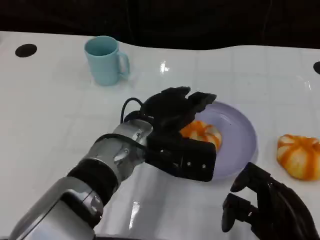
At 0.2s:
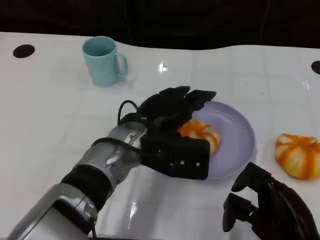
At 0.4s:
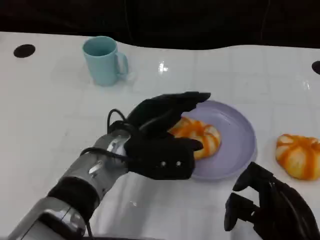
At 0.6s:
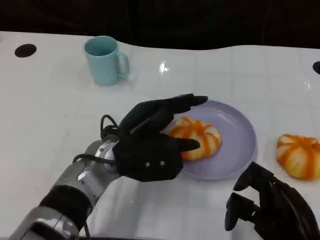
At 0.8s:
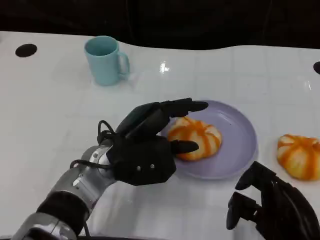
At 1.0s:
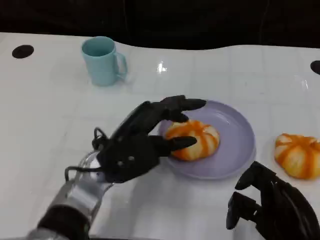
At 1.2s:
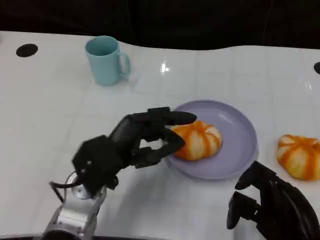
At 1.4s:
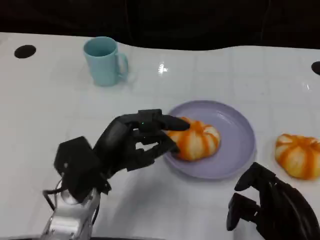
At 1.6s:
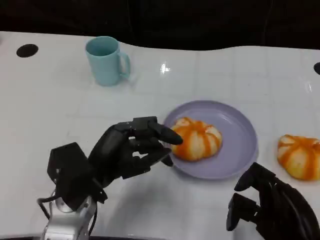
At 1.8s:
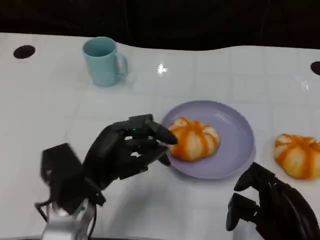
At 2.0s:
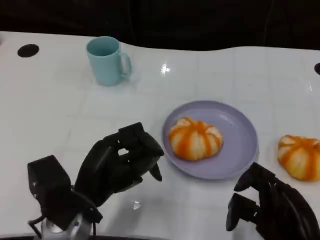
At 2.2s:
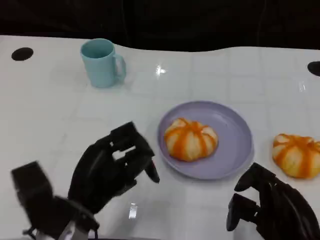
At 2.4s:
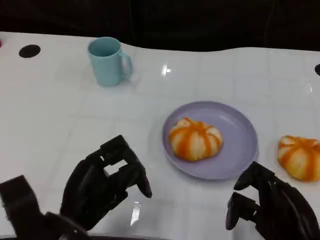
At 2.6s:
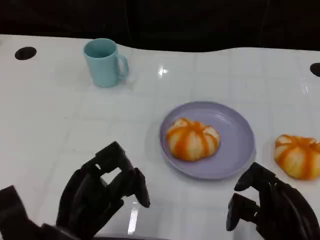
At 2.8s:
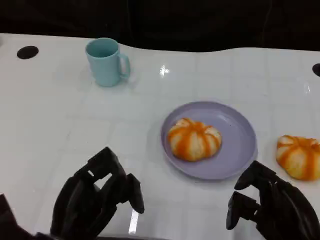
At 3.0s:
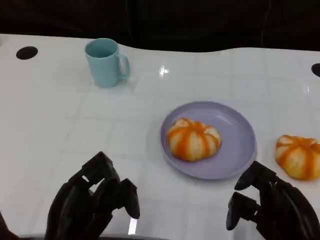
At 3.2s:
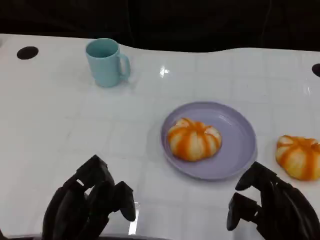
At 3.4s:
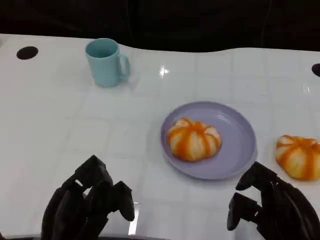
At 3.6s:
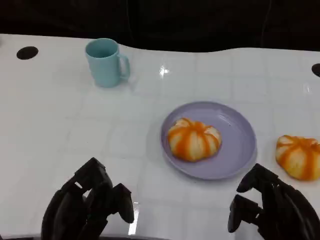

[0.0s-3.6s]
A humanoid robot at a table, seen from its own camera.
Task of the whole recording: Grasp the bread from the table and place it into the plate.
0.0s to 1.8s: The left hand moves to the left and backward, some 10 cm.
1.8s to 3.6s: The left hand shifts approximately 10 cm backward.

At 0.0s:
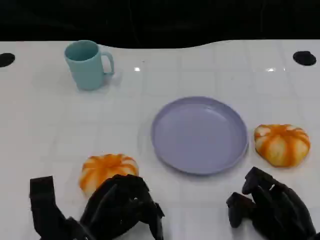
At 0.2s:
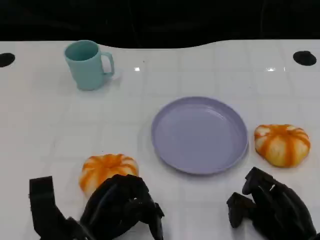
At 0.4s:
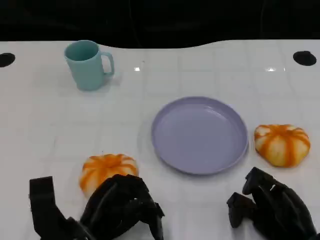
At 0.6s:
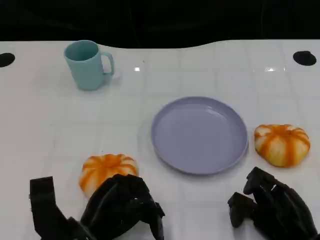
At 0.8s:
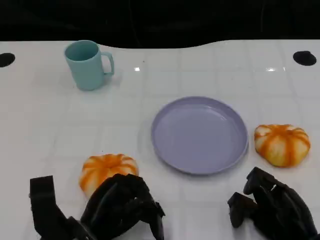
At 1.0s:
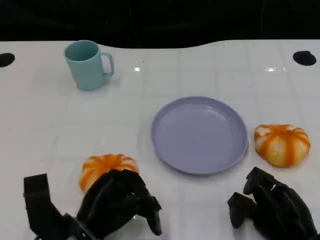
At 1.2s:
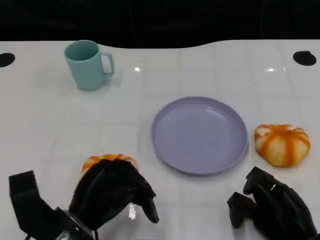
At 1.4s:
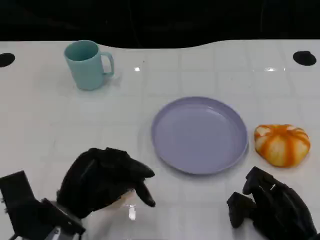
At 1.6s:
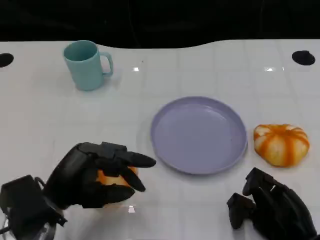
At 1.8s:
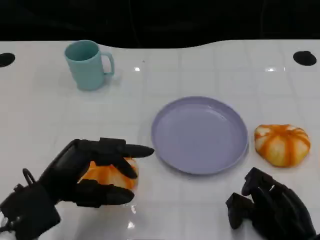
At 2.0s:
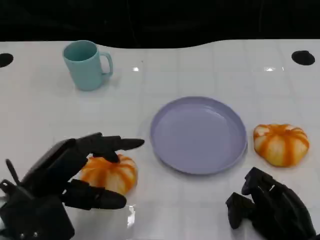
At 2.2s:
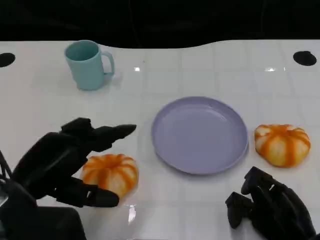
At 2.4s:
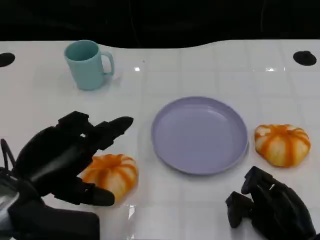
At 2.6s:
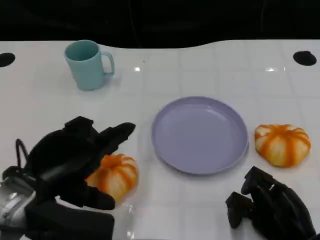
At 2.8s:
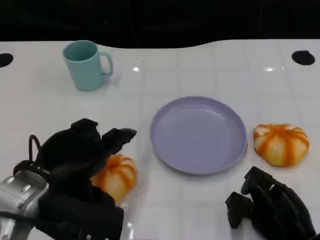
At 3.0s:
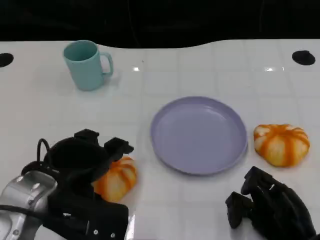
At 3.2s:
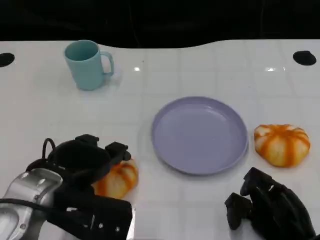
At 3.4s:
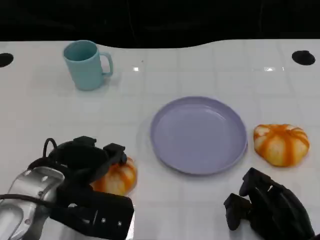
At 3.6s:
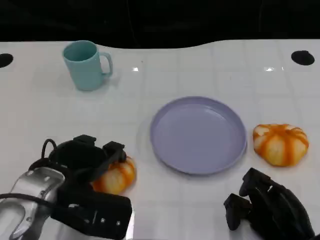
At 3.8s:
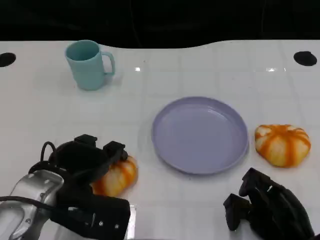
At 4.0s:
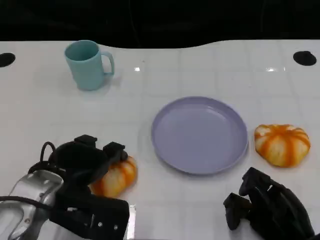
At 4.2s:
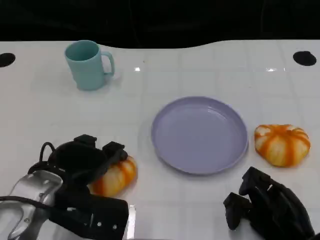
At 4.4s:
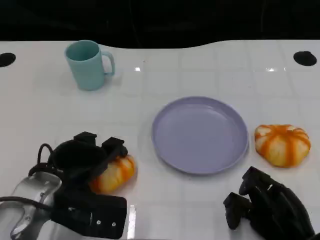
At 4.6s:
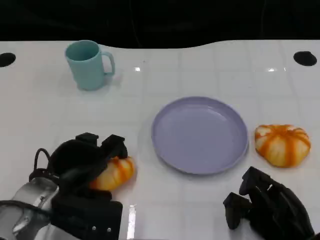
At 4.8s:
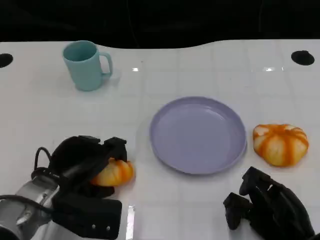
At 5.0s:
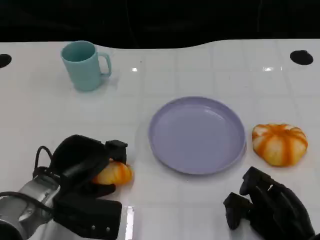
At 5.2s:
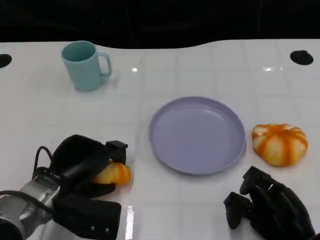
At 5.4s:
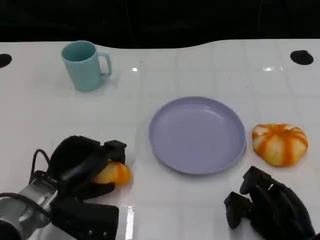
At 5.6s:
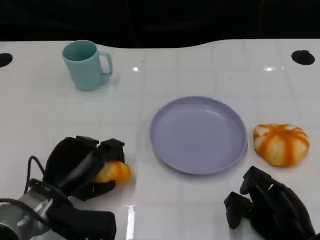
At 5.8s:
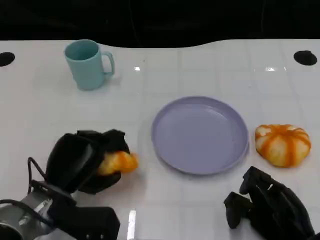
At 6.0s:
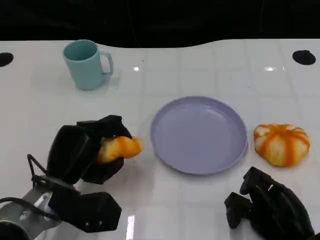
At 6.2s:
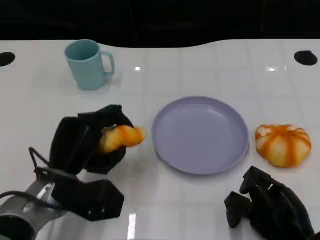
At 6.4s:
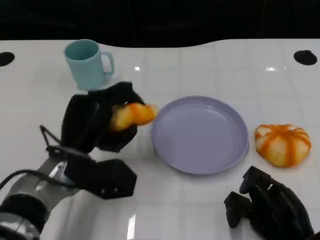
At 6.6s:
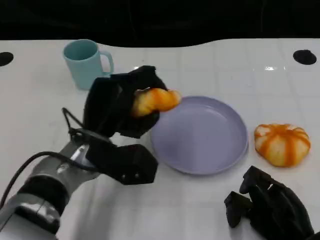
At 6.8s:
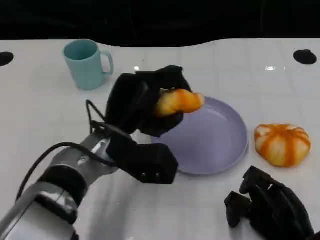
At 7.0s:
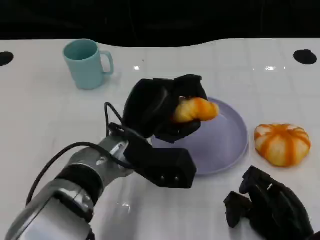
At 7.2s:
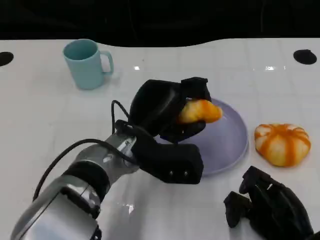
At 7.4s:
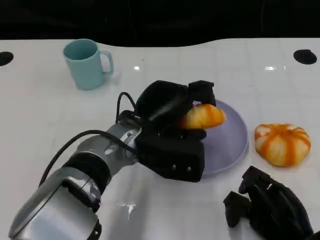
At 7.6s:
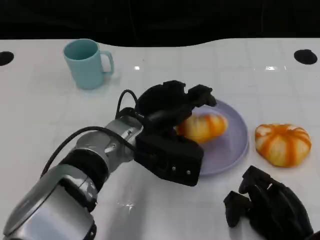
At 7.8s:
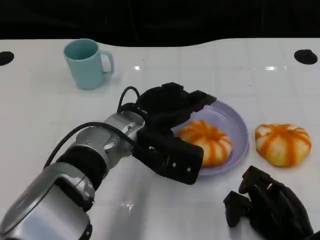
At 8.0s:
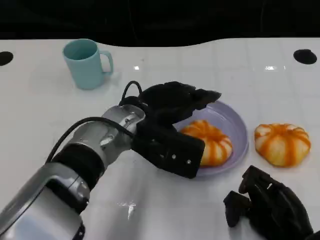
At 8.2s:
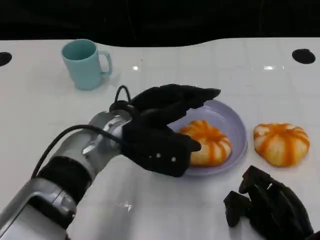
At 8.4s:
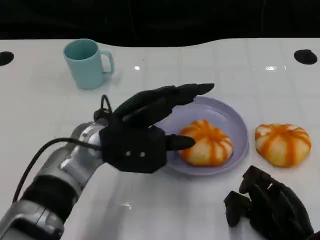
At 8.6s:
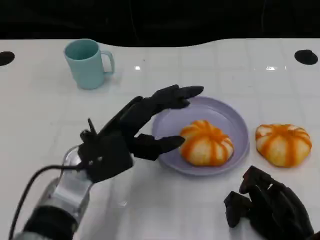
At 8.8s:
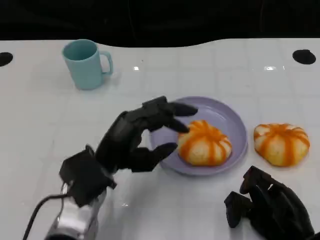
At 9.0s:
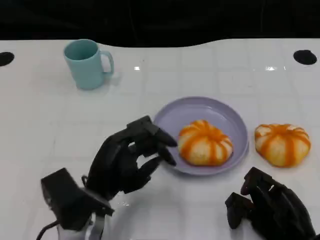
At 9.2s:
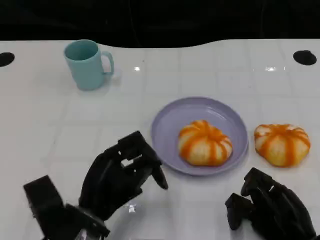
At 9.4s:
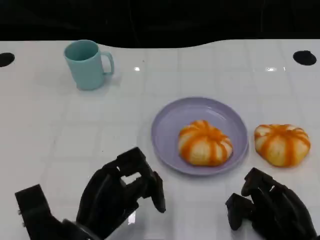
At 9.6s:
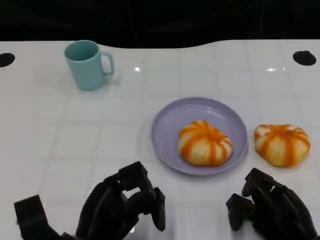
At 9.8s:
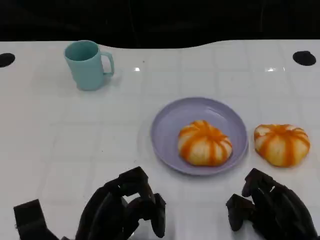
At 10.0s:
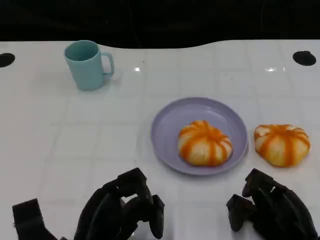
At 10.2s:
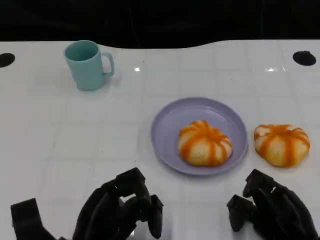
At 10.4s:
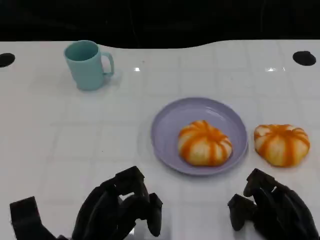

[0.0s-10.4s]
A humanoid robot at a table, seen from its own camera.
Task of the whole recording: Grasp the bread from the table and place it into the plate.
1.4s to 3.0s: The left hand goes about 5 cm upward.
3.0s to 4.4s: The hands move only a little.
6.0s to 7.4s: The left hand travels to the right and upward by approximately 15 cm.
7.4s to 9.0s: The left hand heads backward, to the left and downward, covering approximately 10 cm.
9.0s to 10.4s: The left hand goes roughly 5 cm backward.

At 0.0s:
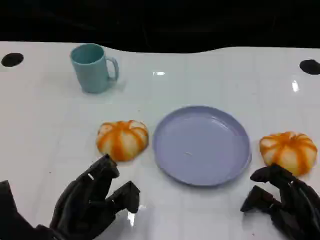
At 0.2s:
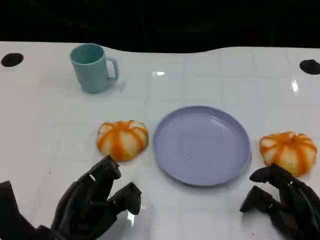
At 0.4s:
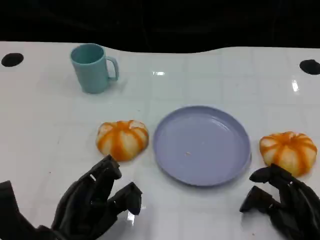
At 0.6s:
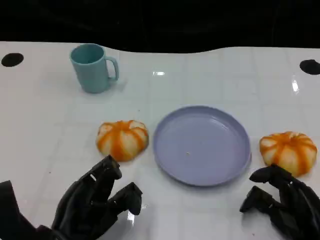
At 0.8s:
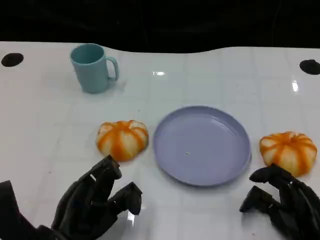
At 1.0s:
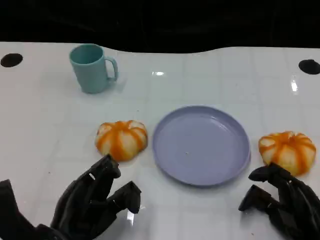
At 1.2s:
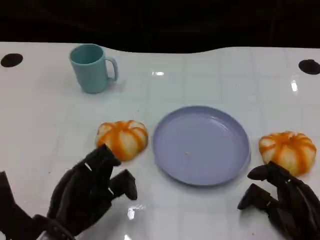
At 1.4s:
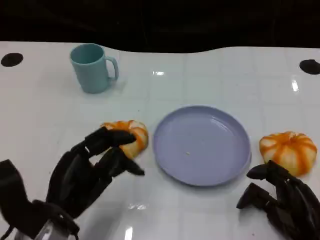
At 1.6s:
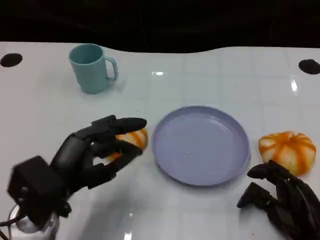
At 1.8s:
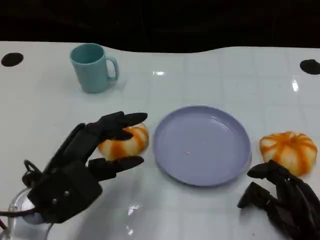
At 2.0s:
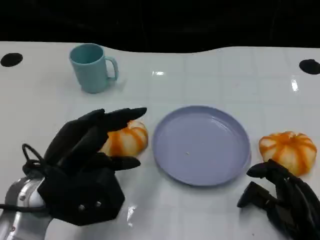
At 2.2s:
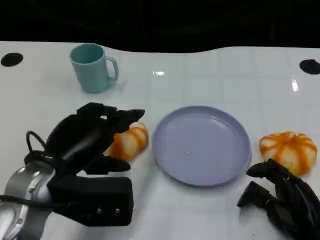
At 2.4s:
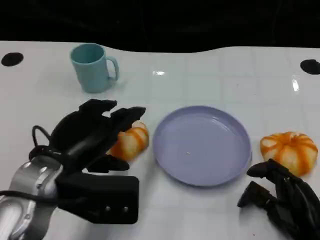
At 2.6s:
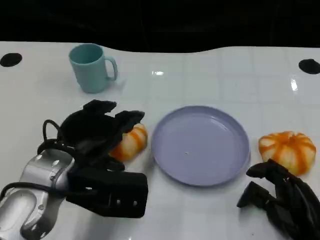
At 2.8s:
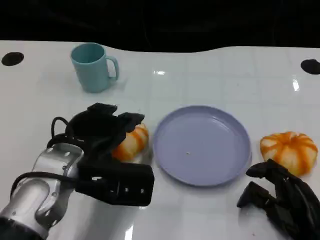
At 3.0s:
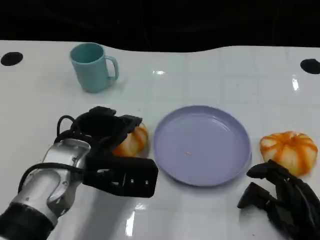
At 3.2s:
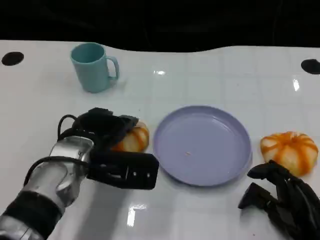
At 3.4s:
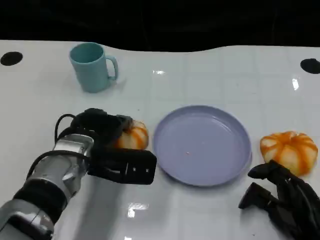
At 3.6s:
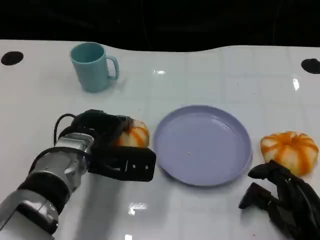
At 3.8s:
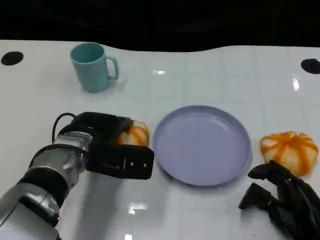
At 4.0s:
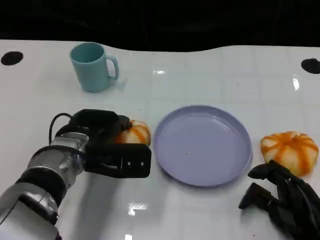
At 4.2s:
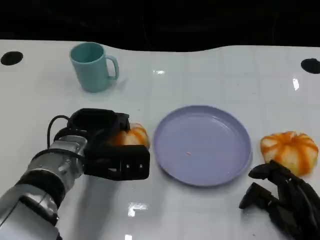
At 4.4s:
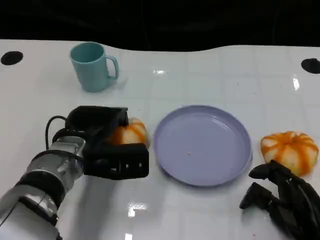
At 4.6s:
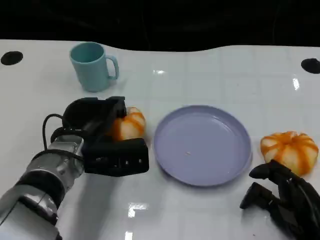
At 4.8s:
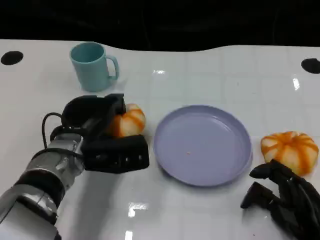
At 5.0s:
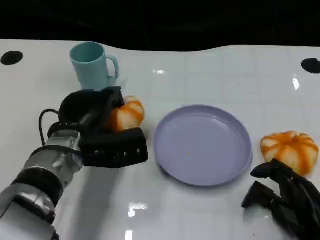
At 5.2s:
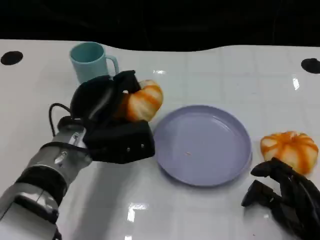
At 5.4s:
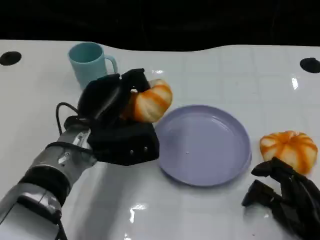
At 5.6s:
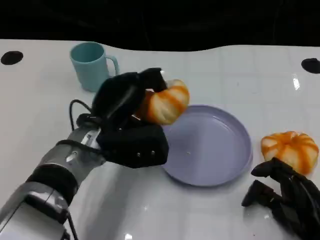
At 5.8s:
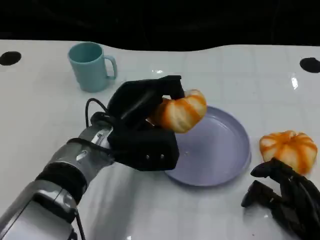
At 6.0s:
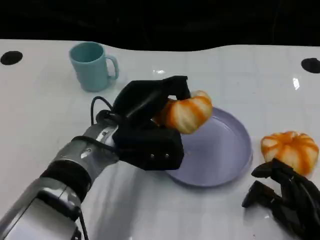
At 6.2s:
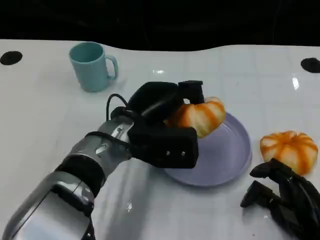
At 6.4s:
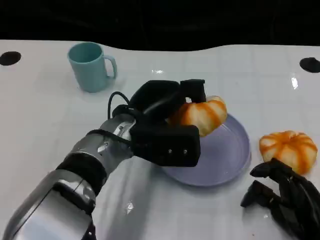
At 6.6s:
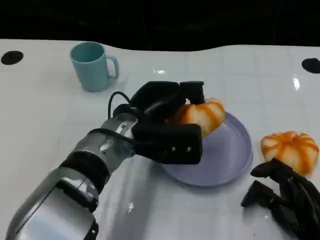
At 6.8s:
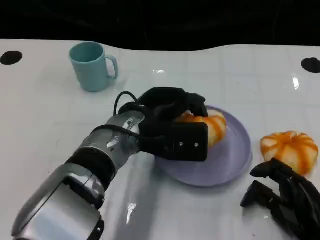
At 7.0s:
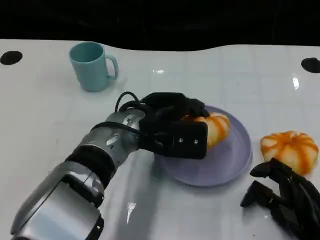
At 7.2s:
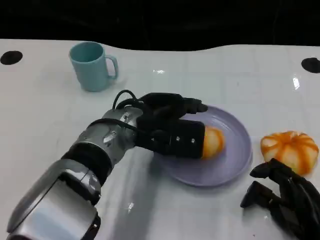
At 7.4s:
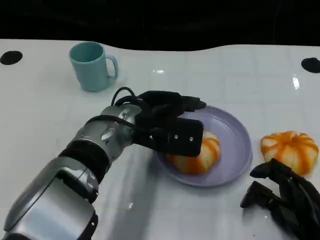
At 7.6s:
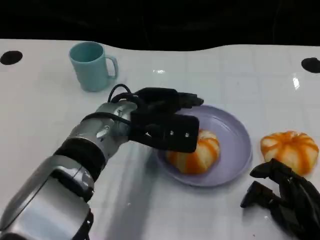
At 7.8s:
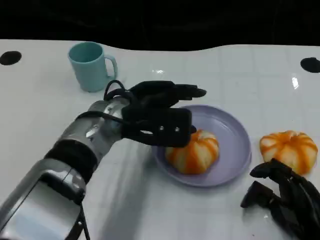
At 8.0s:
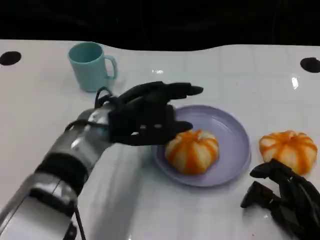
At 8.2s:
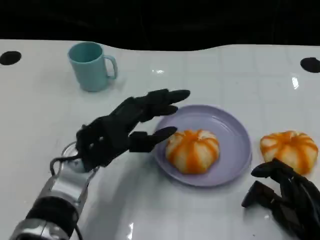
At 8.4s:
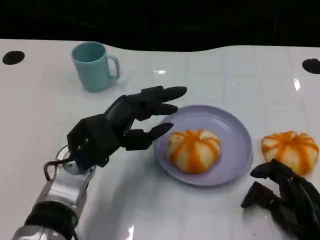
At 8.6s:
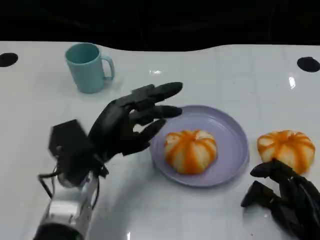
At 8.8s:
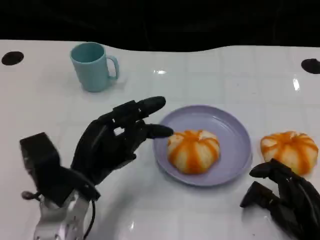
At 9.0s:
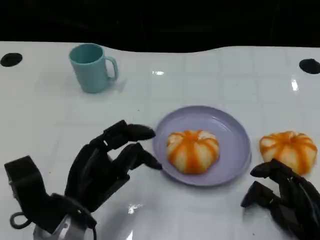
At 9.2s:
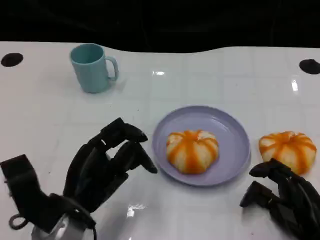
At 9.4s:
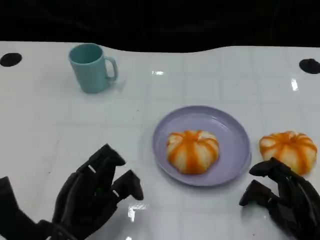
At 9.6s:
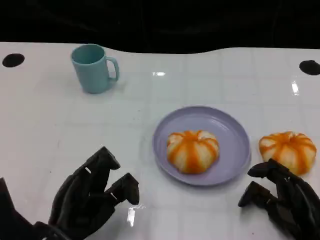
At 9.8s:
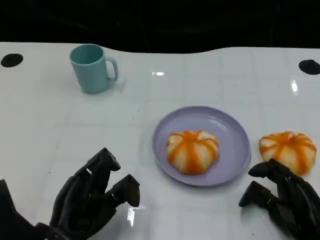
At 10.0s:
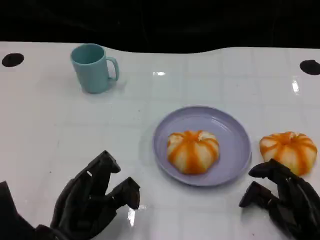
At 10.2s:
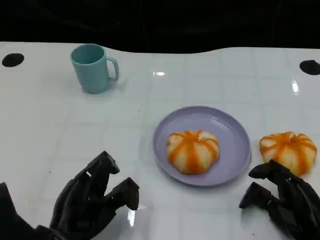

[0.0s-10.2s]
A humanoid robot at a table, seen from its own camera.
Task of the whole recording: Grasp the bread from the table and place it into the plate.
1.4s to 3.0s: The left hand is displaced forward by some 5 cm.
3.0s to 4.4s: The hands make only small movements.
4.4s to 5.8s: The left hand moves to the right, about 5 cm.
7.2s to 8.8s: The left hand travels to the left, backward and downward by some 15 cm.
8.8s to 10.2s: The left hand is displaced backward by approximately 5 cm.
